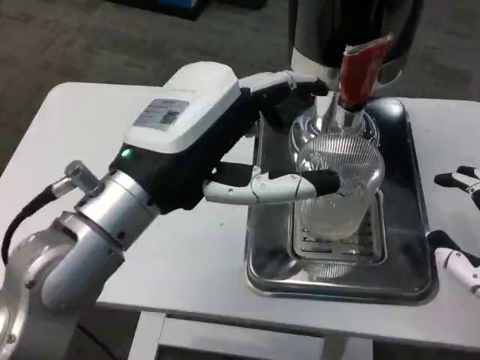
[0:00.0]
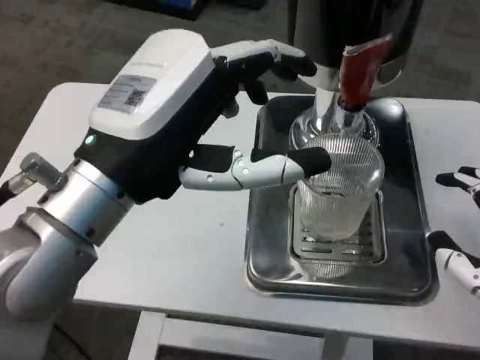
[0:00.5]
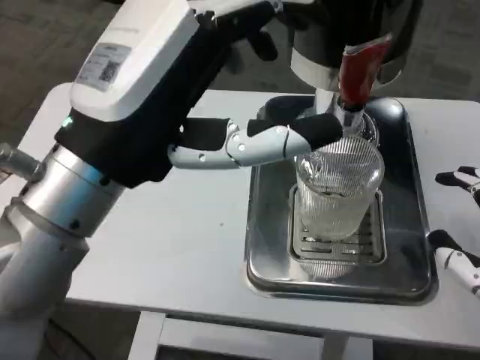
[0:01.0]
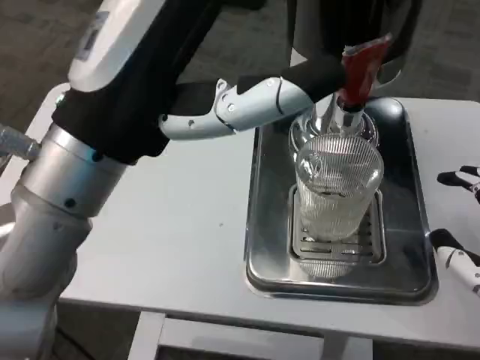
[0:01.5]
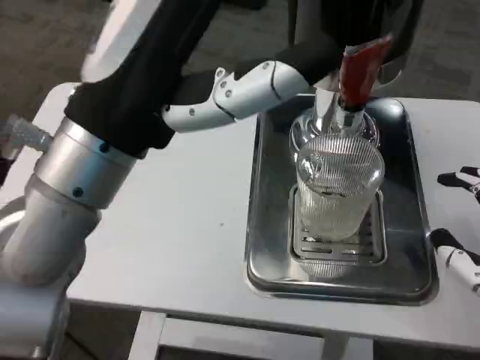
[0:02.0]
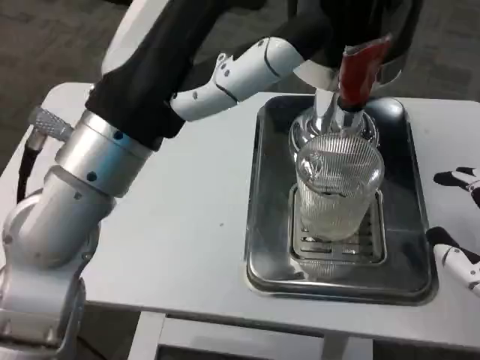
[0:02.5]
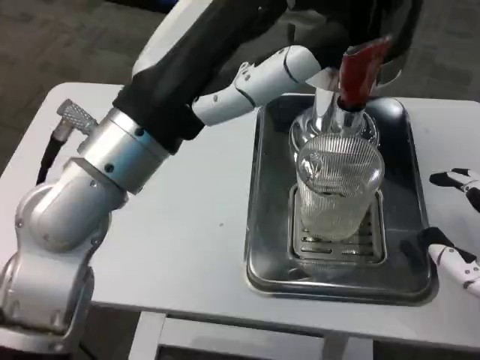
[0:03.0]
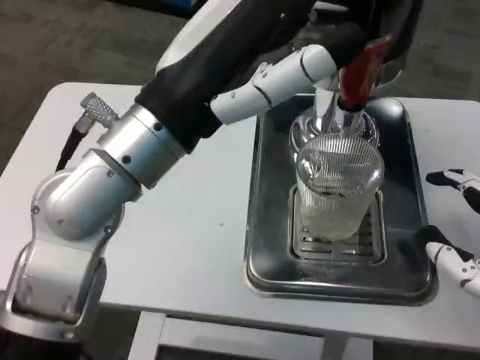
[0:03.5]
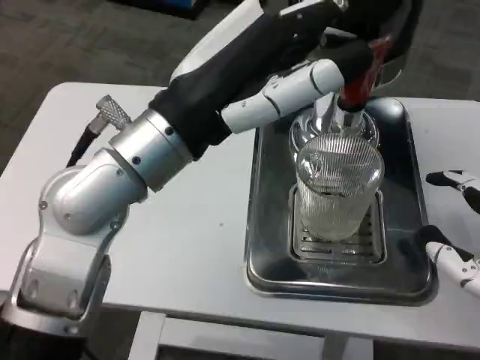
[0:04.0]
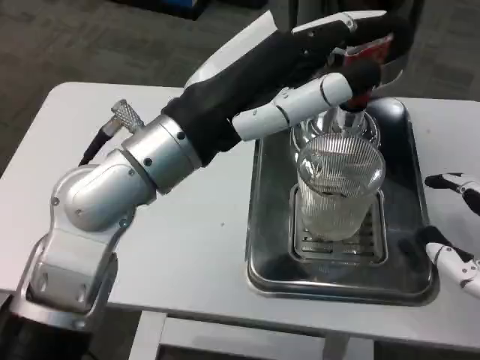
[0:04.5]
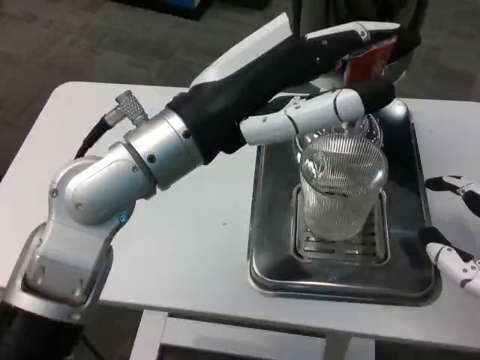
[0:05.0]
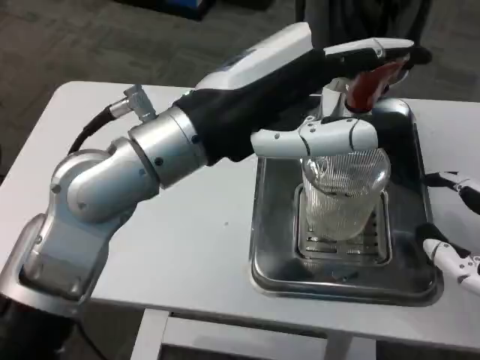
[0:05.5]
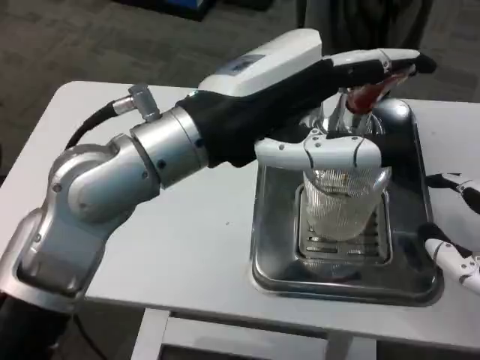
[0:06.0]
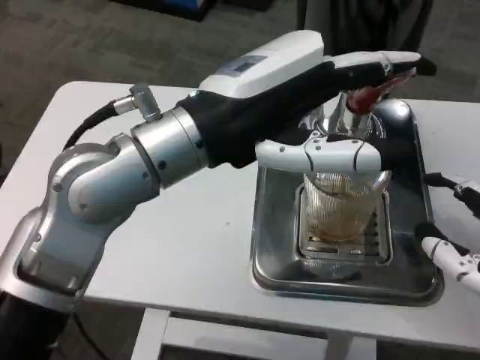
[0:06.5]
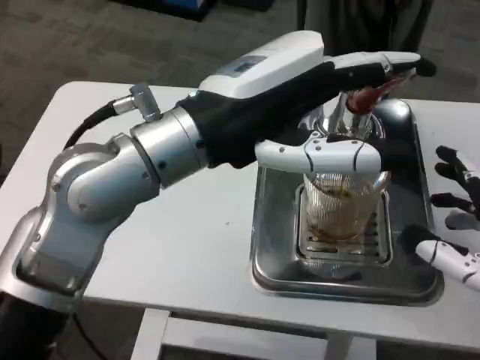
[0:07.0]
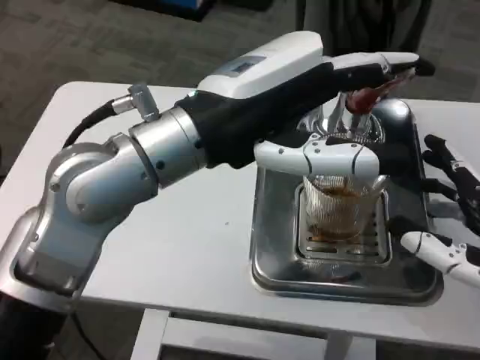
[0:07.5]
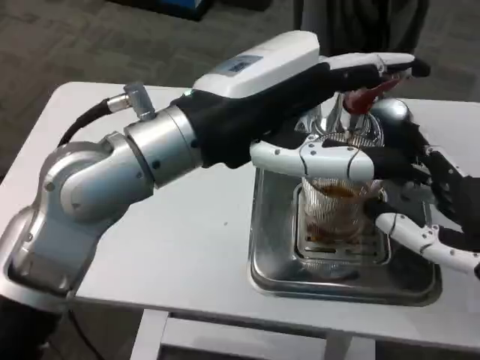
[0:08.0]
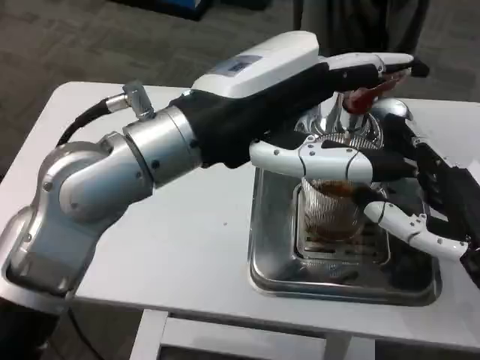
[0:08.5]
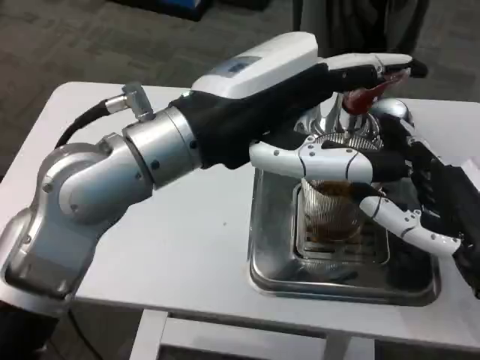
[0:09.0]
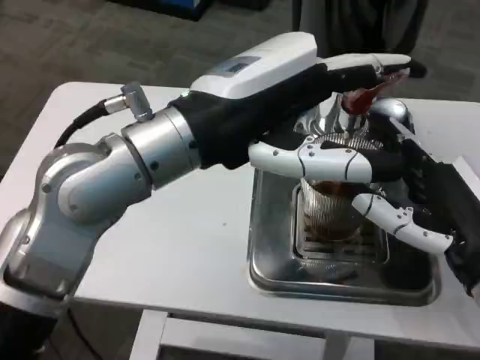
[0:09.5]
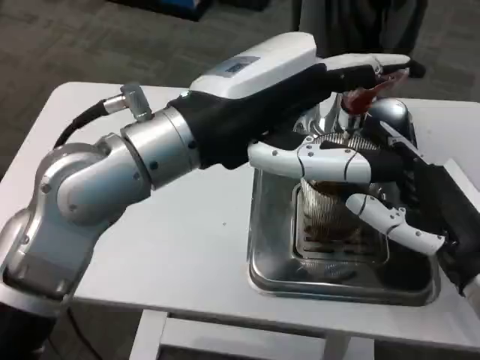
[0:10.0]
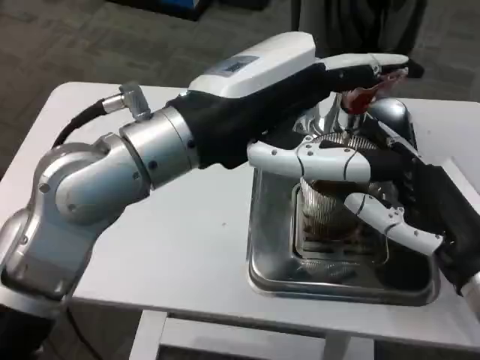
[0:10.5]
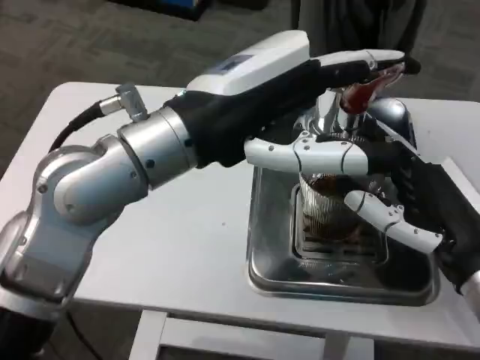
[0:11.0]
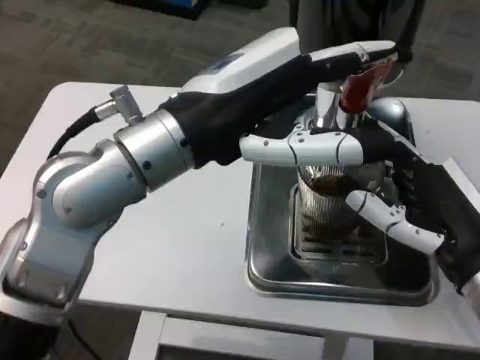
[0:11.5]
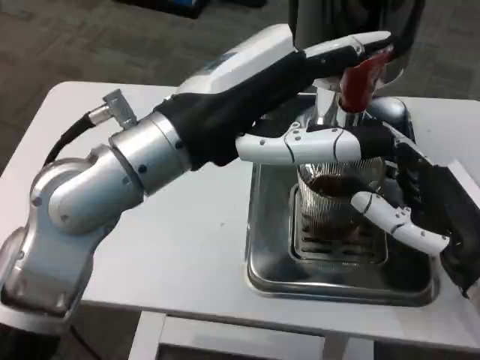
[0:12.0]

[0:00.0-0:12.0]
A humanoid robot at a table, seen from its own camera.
Task of the whole recording: Grasp the cup under the faucet to collect the drink, then remove the cup.
0:08.0 to 0:10.0: The hands move only a little.

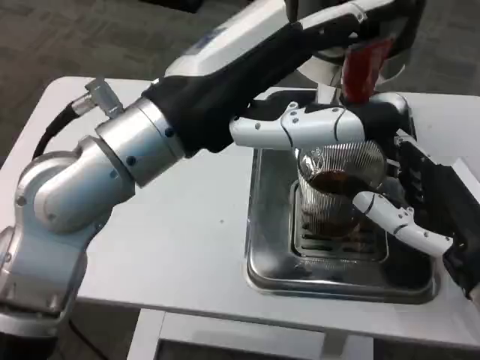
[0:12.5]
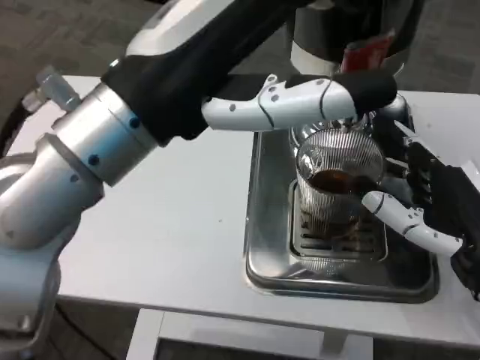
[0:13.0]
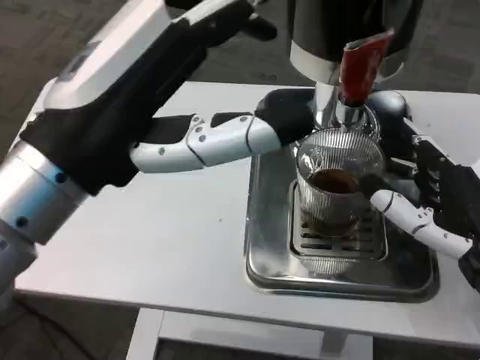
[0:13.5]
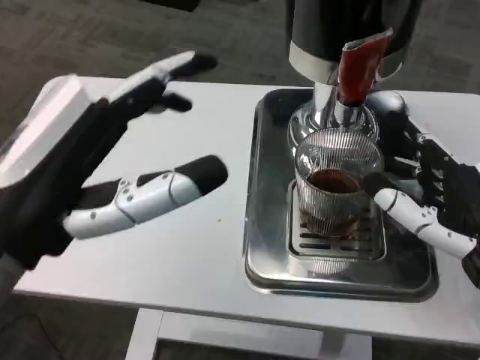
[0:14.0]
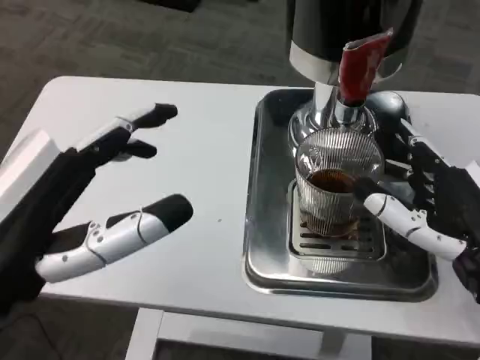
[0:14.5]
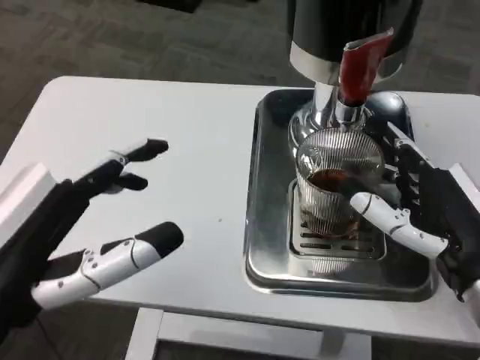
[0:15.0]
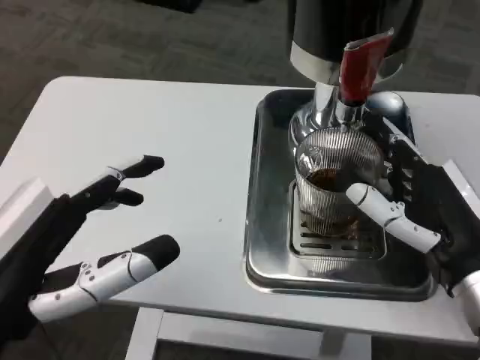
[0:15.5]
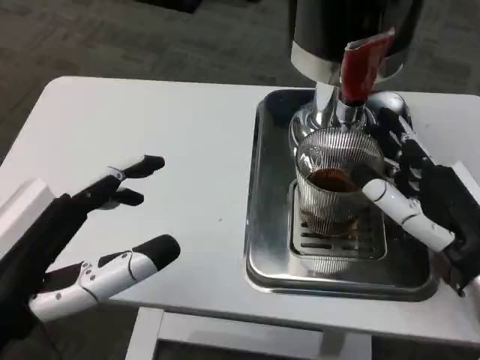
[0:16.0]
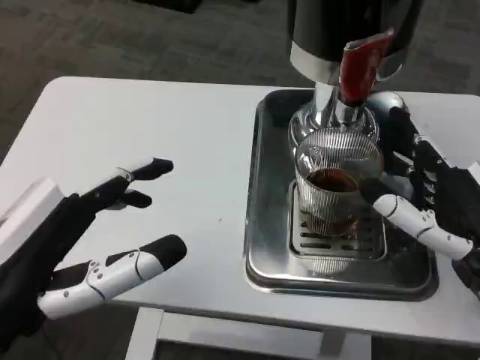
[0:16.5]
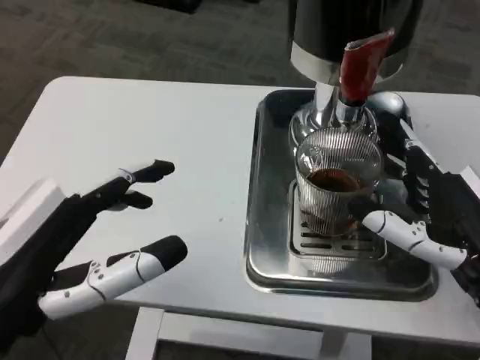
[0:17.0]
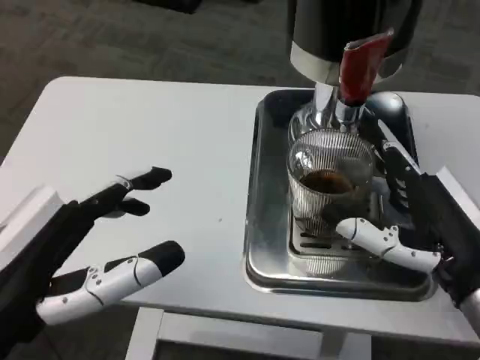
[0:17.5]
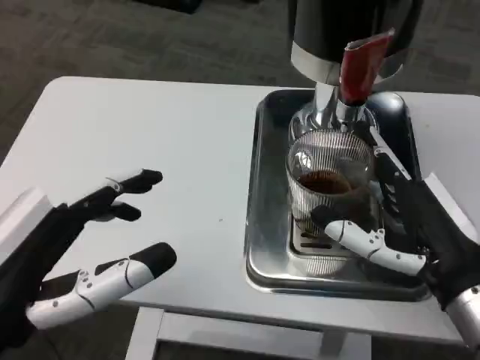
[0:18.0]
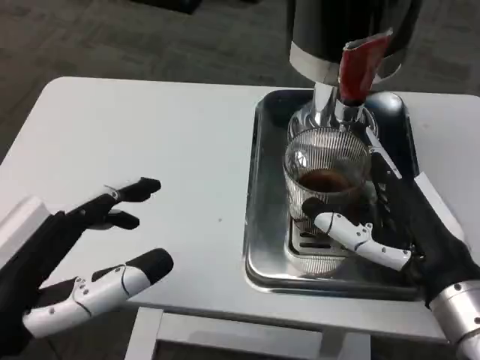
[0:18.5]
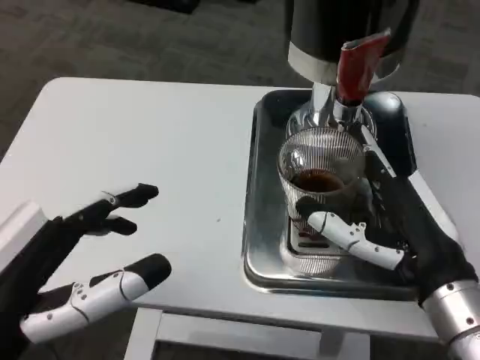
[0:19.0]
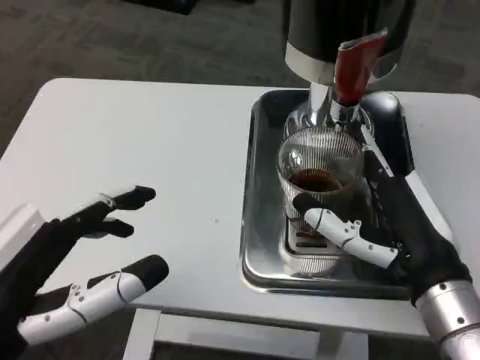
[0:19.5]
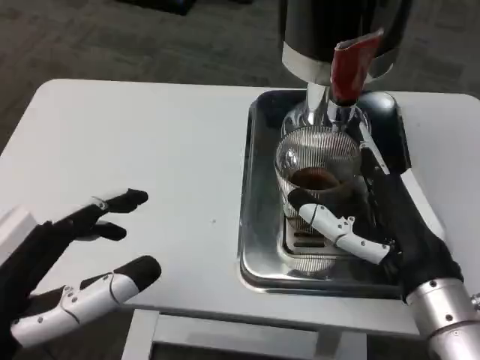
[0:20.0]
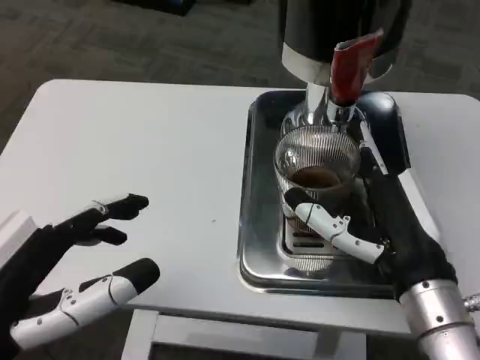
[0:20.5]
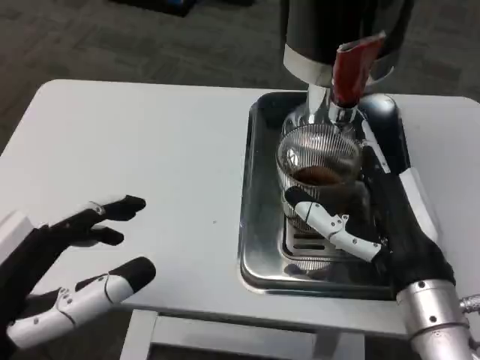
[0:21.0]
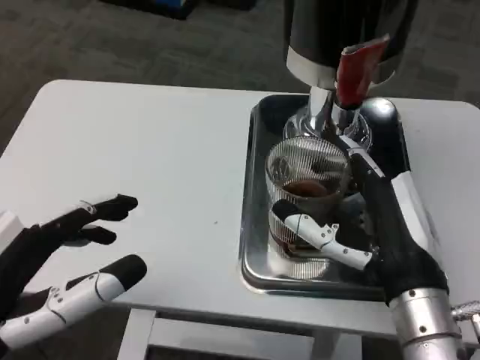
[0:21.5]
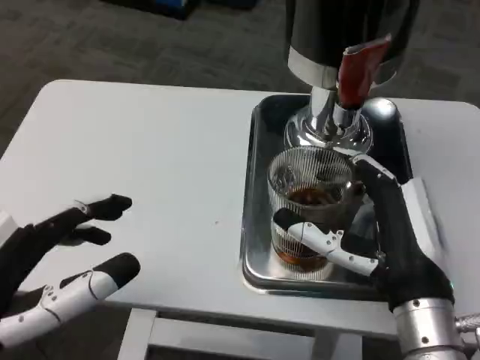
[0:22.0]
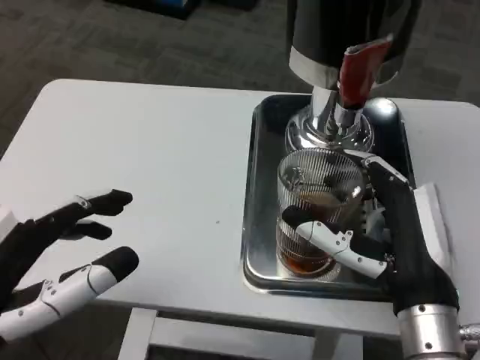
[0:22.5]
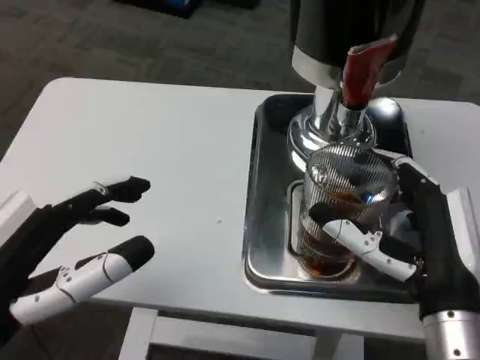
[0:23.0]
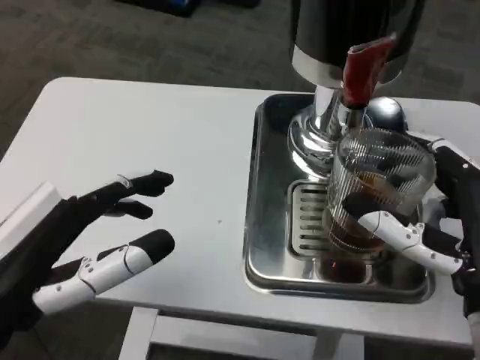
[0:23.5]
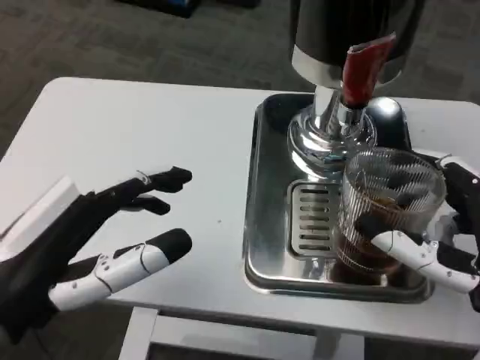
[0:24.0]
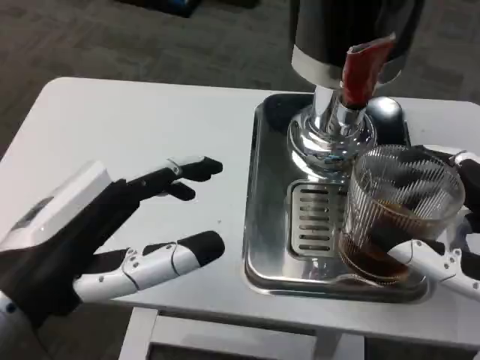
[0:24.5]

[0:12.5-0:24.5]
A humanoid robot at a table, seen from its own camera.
Task of the whole recording: Grasp the cup under the faucet to collect the drink, then remove the cup.
0:12.5 to 0:14.5: The left hand travels backward, to the left and downward by about 15 cm.
0:22.5 to 0:24.5: The left hand moves about 5 cm. Meanwhile the right hand heads to the right and backward, covering some 10 cm.

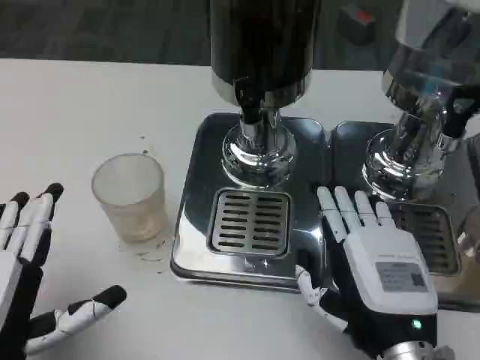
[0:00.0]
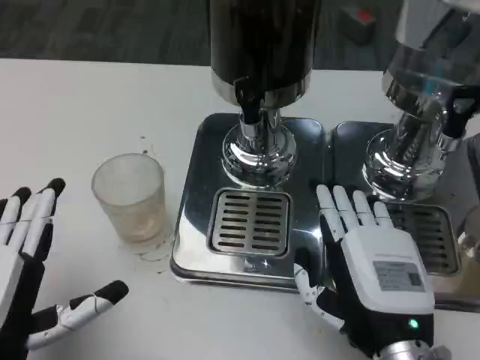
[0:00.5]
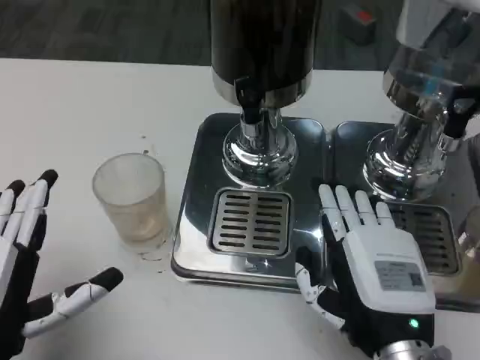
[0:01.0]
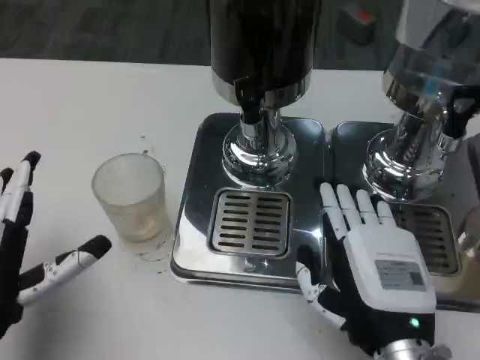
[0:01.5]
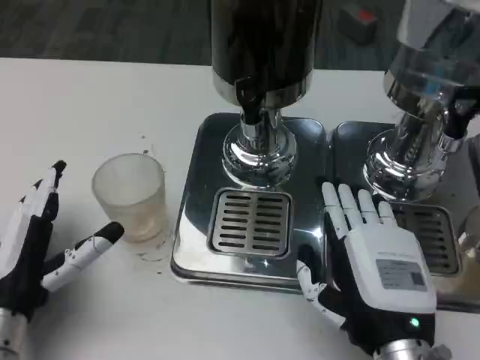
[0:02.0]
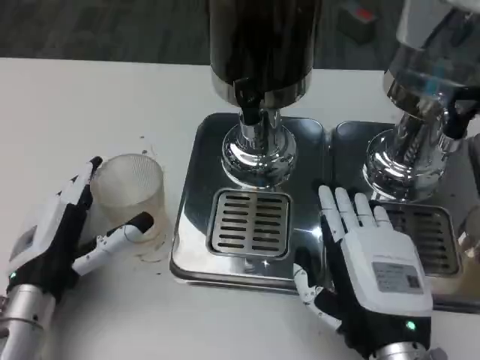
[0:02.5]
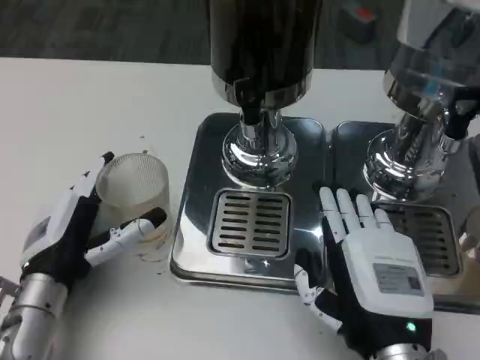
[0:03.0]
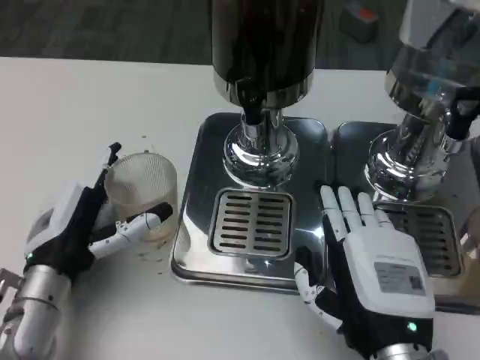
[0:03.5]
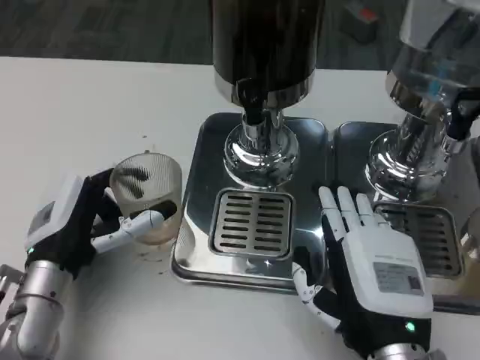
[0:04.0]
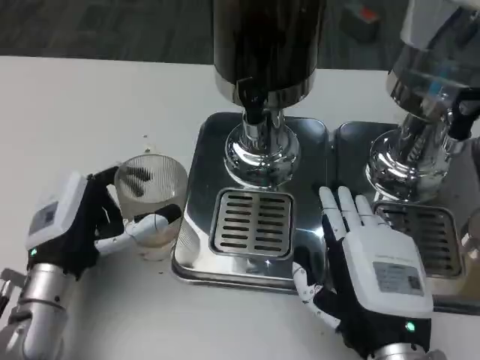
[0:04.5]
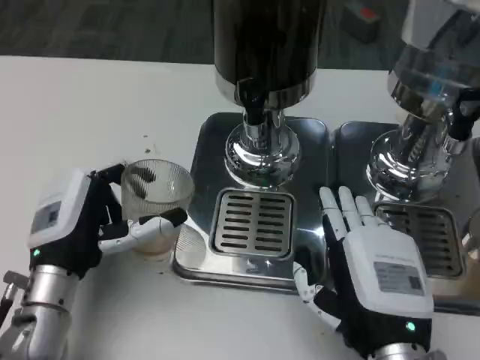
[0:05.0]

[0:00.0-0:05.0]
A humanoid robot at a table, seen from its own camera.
Task of the whole recording: Grasp the cup under the faucet to collect the drink, then remove the cup.
0:00.0 to 0:02.5: The left hand is displaced forward by approximately 10 cm.
